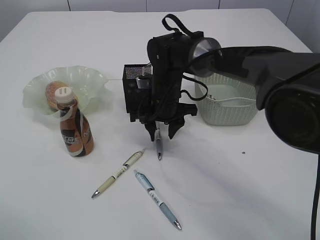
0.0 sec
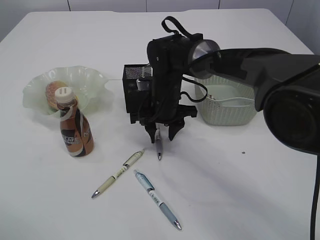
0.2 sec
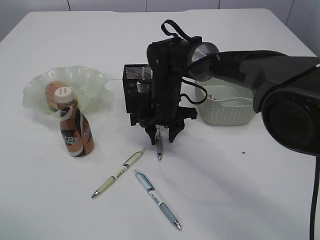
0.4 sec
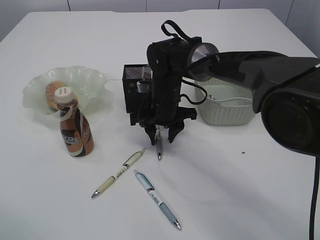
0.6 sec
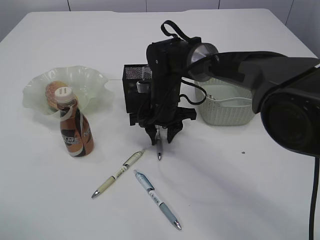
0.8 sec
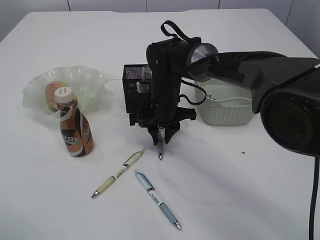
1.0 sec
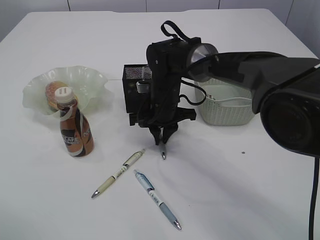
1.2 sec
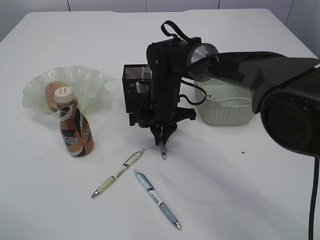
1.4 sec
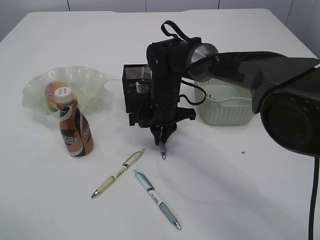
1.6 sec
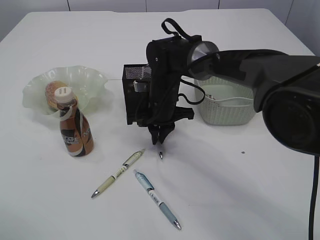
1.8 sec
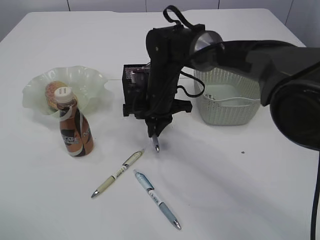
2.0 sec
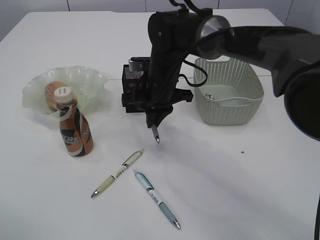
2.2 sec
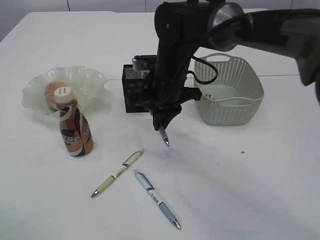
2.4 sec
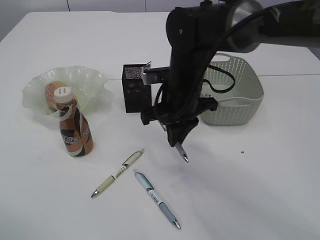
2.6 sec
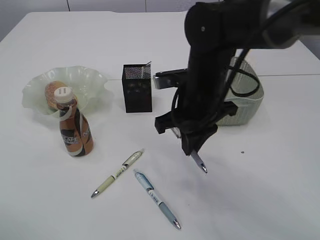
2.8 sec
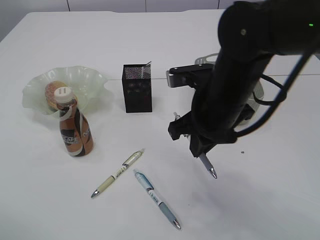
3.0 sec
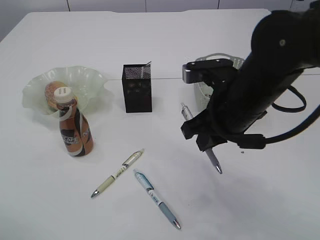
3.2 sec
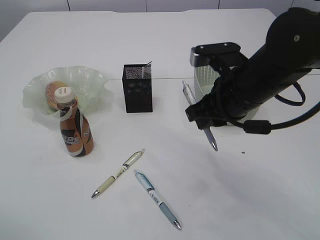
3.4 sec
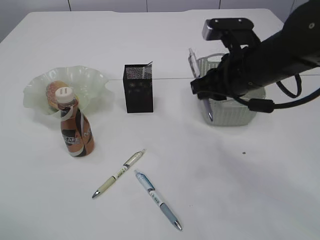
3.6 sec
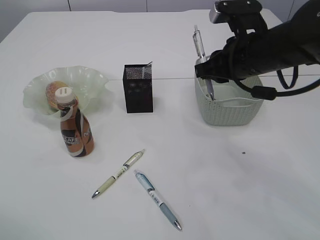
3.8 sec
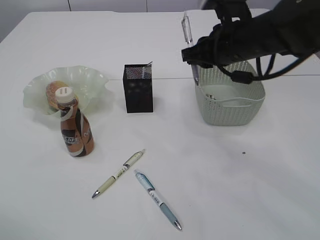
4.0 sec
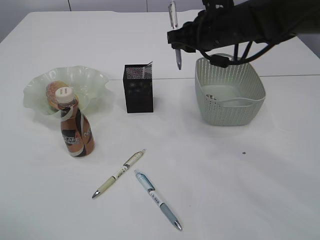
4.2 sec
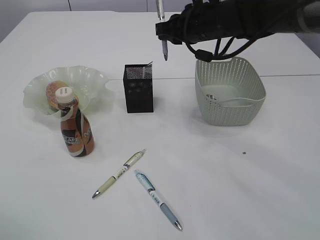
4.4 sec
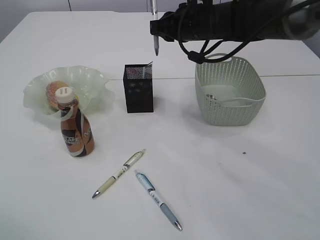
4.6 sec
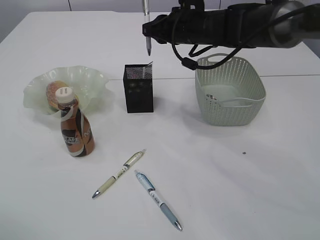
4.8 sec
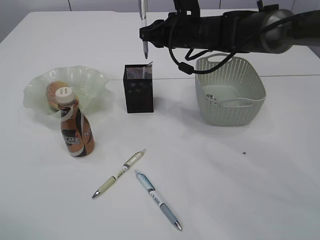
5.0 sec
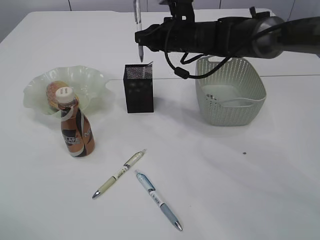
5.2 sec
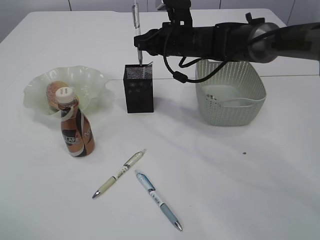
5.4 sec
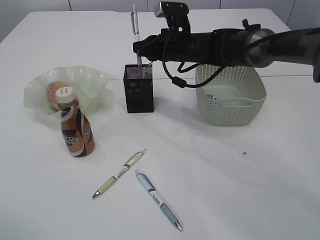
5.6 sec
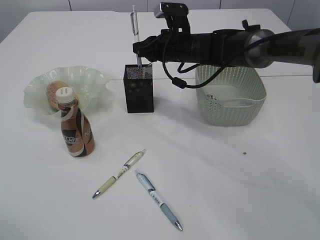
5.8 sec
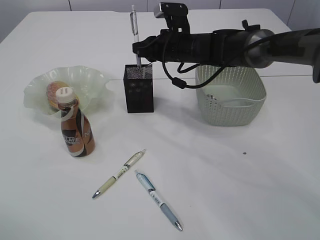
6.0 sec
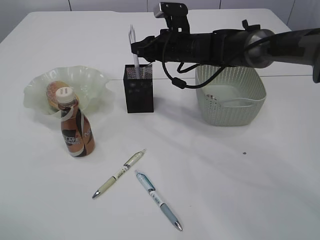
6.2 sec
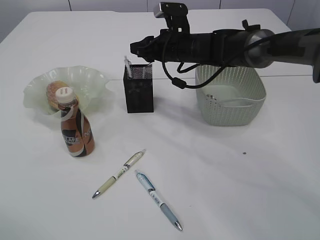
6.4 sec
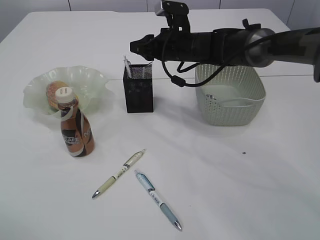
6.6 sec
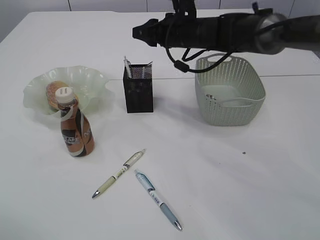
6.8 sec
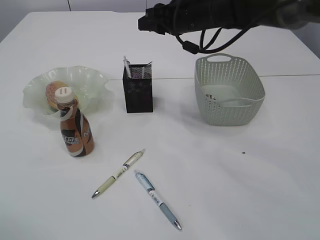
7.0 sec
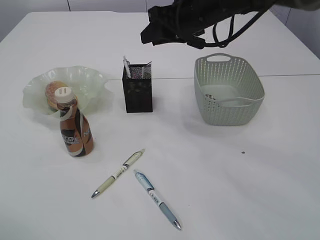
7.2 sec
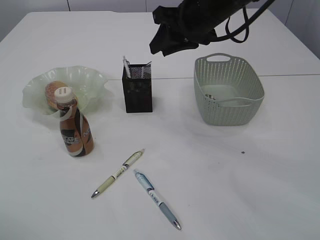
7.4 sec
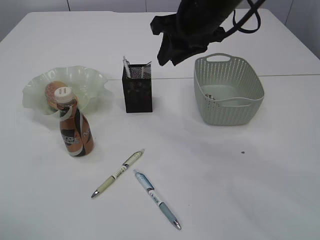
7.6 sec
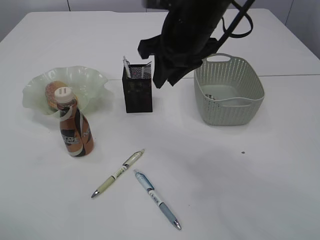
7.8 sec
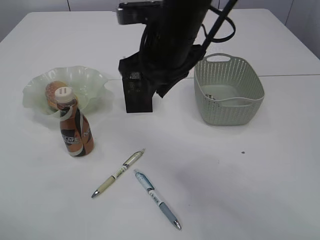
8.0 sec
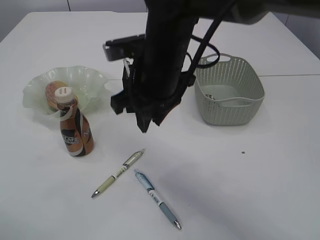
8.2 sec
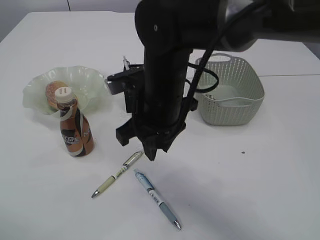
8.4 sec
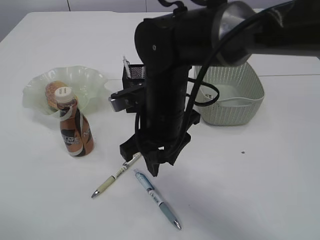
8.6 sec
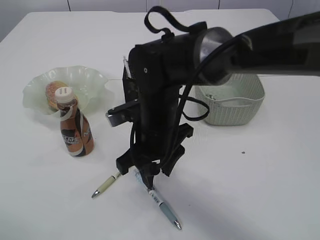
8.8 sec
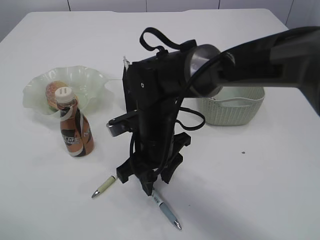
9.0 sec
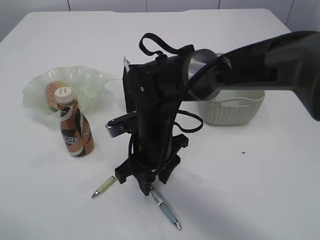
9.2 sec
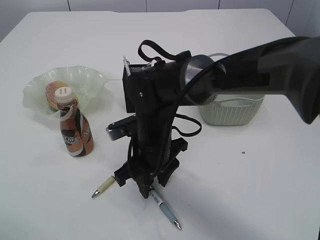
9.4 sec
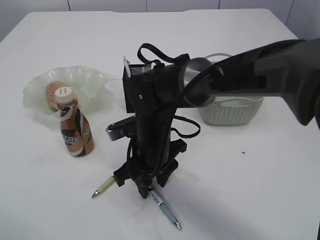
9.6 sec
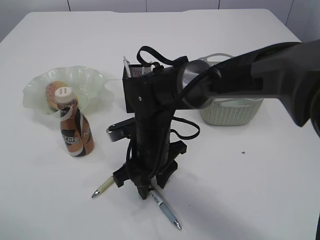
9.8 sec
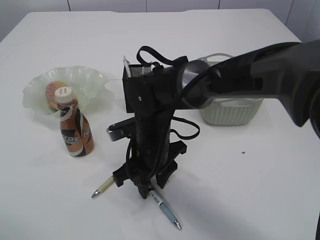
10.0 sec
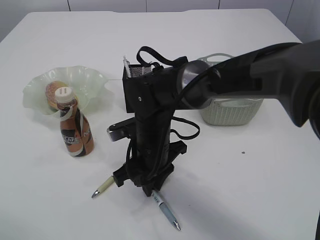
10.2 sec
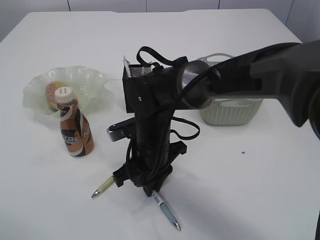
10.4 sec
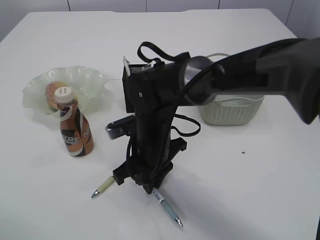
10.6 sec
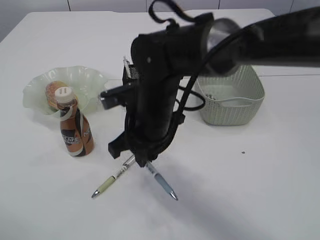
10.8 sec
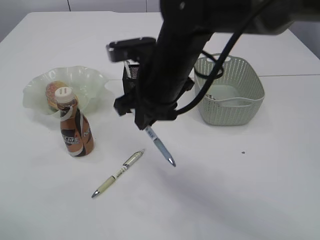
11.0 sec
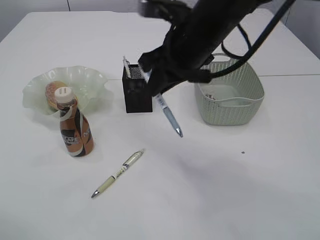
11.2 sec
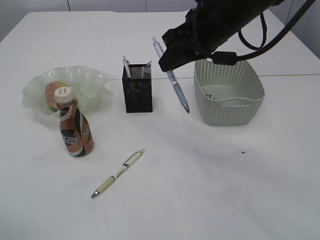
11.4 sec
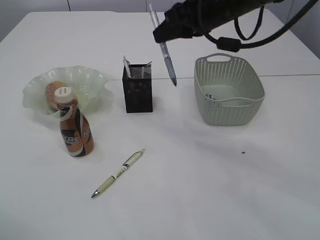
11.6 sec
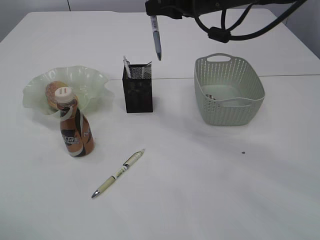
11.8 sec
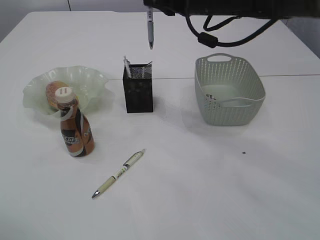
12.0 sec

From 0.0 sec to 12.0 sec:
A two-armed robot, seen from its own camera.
Step, from 0.0 sec to 2.6 sec: Pick up the pen with right arm.
Step, from 2.8 sec to 7.2 sec: Place the pen into the pen holder.
Step, from 7.4 sec to 11.0 sec: Pick up the pen with right arm.
From 0.0 sec to 1.6 sec: The right gripper closes its fingers.
From 1.6 sec to 3.0 sec: The right gripper moves backward, upward and to the right, roughly 20 cm.
From 3.0 sec to 4.4 sec: The right gripper travels forward by some 15 cm.
From 4.4 sec to 6.0 sec: The right gripper shifts some 10 cm downward and forward.
From 6.0 sec to 7.6 sec: The right gripper moves upward and backward, about 15 cm.
From 7.6 sec to 9.0 sec: The right gripper moves downward, to the left and backward, about 20 cm.
From 9.0 sec to 10.4 sec: The right gripper closes.
From 10.4 sec to 12.0 sec: The right gripper moves upward, to the right and forward, approximately 25 cm.

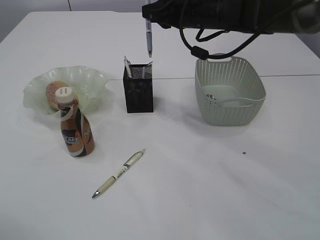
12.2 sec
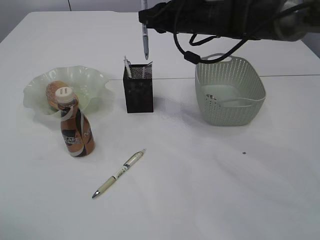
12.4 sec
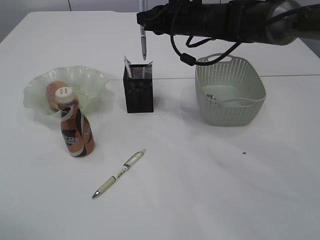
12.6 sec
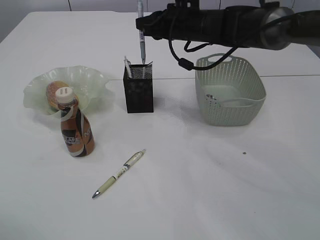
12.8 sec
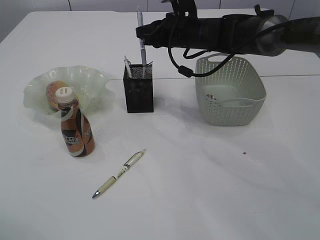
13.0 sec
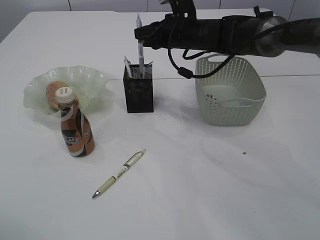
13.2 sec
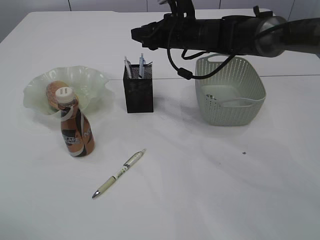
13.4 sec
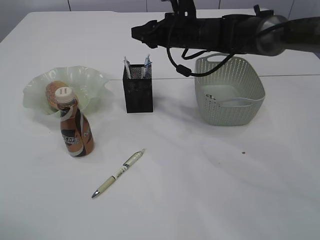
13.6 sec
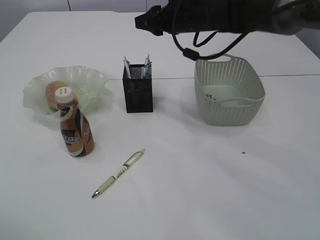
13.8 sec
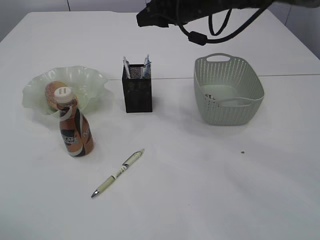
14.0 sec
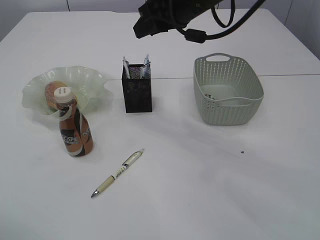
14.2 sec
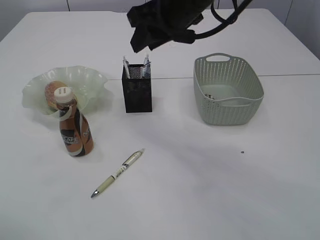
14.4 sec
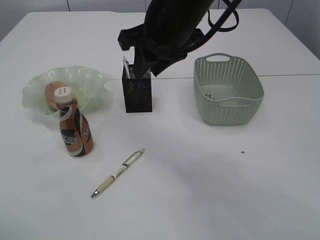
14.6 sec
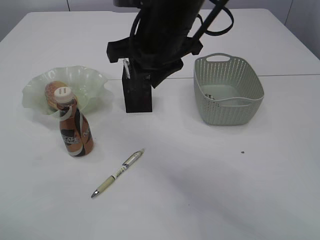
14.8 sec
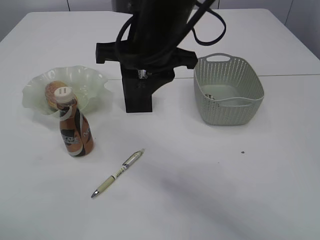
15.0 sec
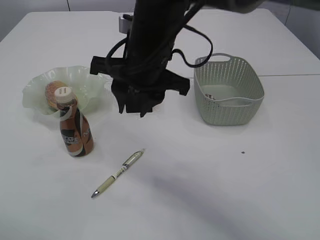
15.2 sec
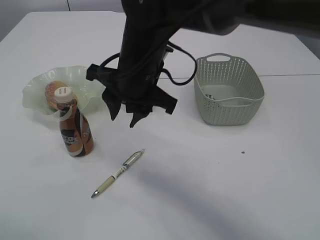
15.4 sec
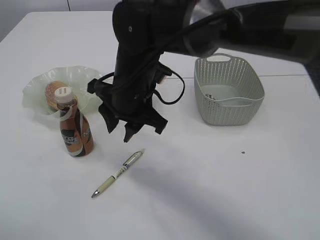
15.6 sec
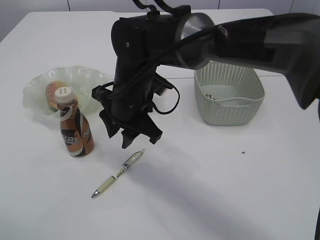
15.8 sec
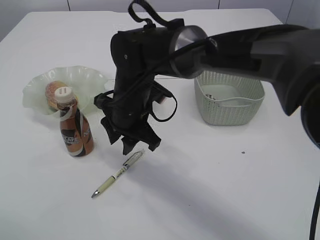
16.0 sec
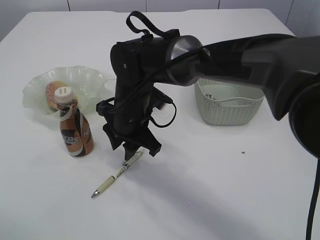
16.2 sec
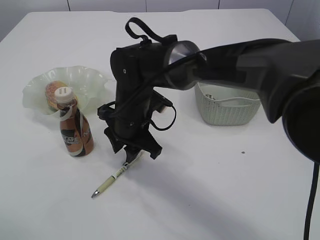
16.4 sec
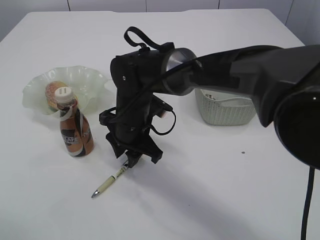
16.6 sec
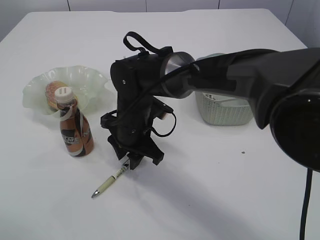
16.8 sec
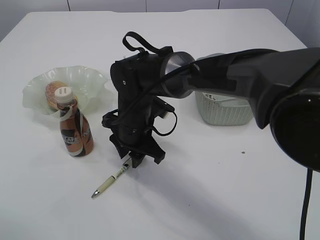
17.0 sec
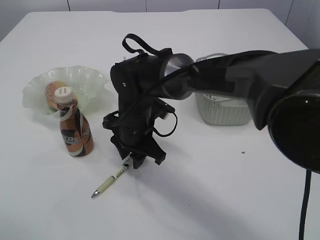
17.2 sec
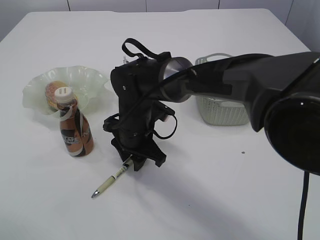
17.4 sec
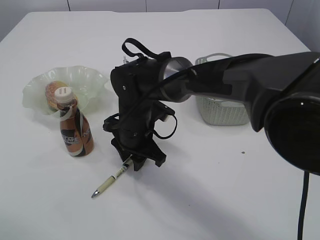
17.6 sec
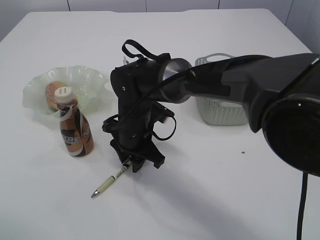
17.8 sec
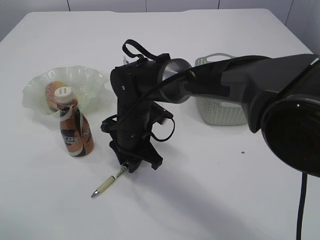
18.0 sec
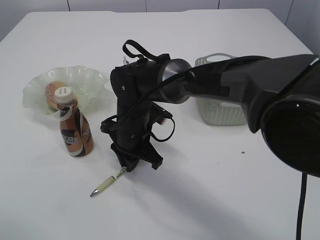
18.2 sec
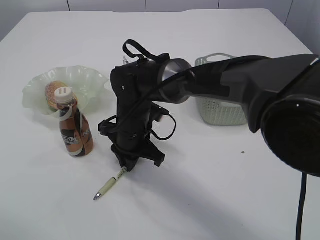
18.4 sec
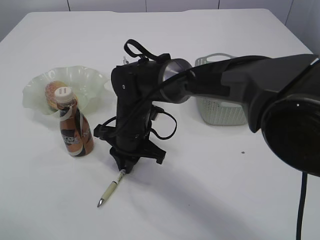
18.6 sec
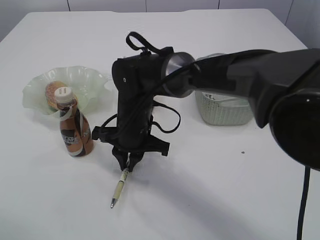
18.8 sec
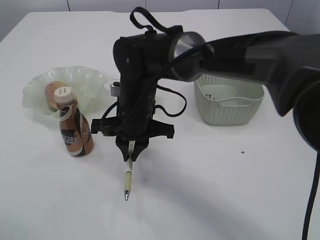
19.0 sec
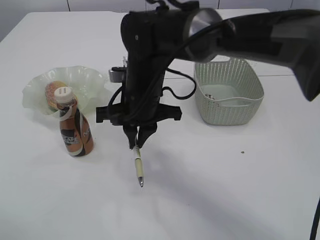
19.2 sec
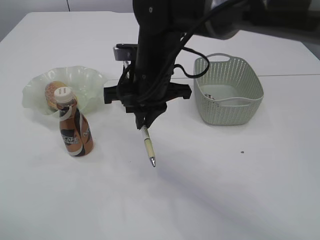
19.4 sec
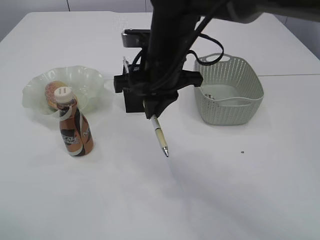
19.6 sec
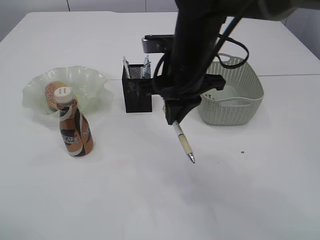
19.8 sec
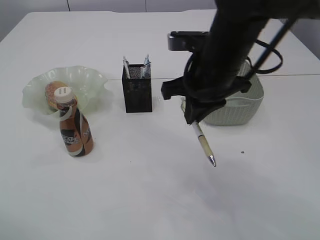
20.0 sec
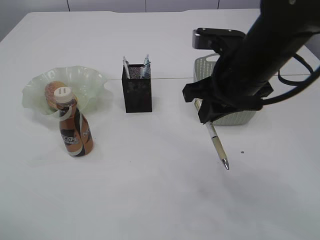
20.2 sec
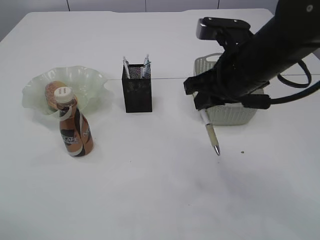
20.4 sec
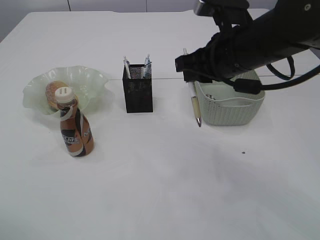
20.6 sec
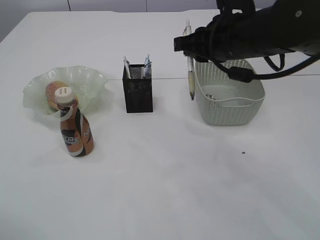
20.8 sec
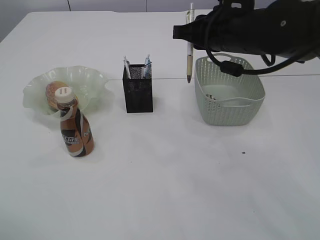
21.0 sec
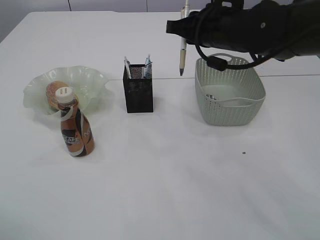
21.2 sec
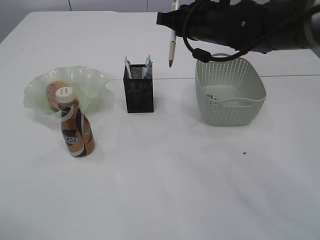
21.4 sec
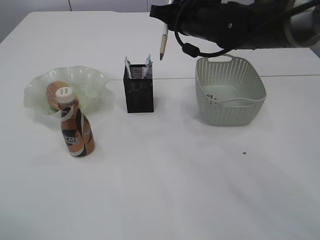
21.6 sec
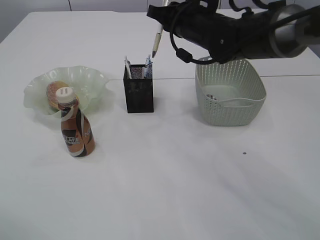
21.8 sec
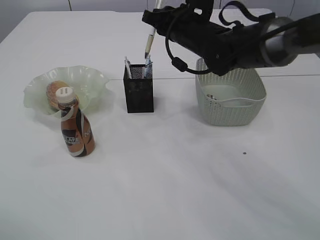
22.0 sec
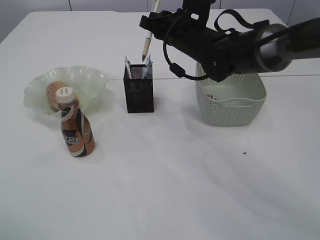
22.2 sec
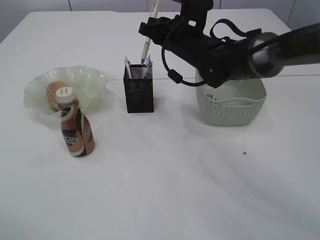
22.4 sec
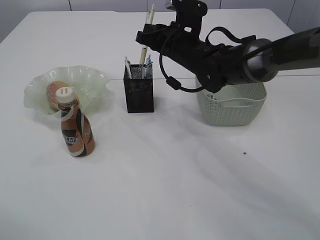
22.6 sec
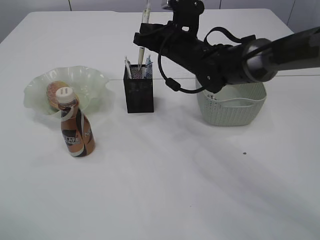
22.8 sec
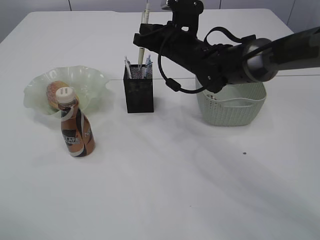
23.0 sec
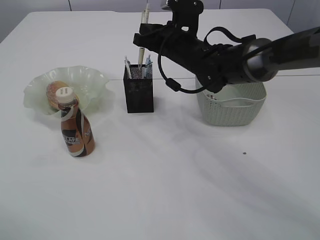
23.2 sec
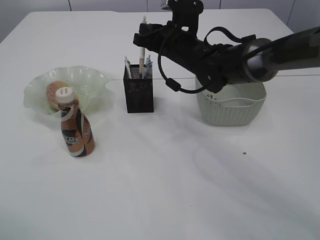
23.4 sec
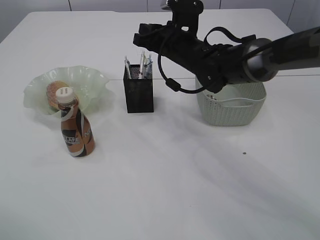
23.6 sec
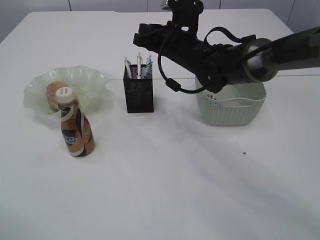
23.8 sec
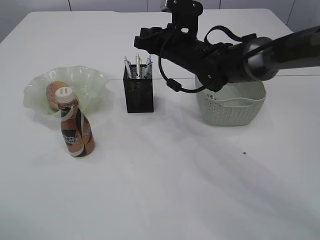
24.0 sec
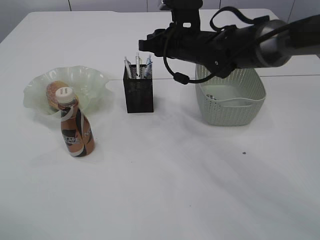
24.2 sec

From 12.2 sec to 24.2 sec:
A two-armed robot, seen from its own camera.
Step, from 12.2 sec to 14.2 sec: Place the pen into the pen holder.
Step, from 14.4 sec to 19.2 sec: Pick up the pen with right arm.
Step, from 19.4 sec to 24.0 sec: Place the pen into the pen holder.
From 12.2 sec to 13.8 sec: The right gripper opens.
From 13.8 sec to 15.2 sec: The right gripper shifts approximately 15 cm backward and to the left.
From 15.2 sec to 16.6 sec: The right gripper goes about 15 cm downward.
From 16.6 sec to 18.2 sec: There are only small adjustments of the grippers.
From 18.2 sec to 19.8 sec: The right gripper goes approximately 15 cm upward and to the right.
From 19.8 sec to 21.2 sec: The right gripper moves to the right, roughly 5 cm.
From 21.2 sec to 22.6 sec: The right gripper is displaced forward and downward by approximately 10 cm.
From 22.6 sec to 24.2 sec: The grippers stay close to where they were, moving slightly.
